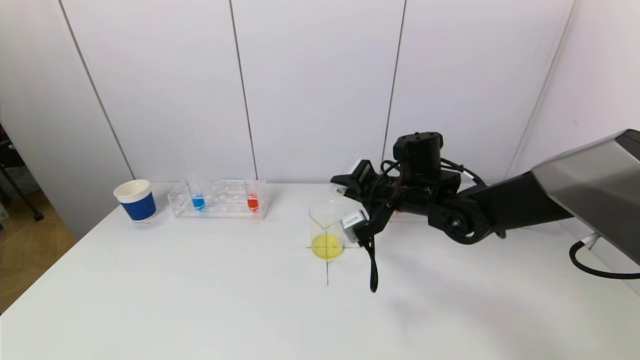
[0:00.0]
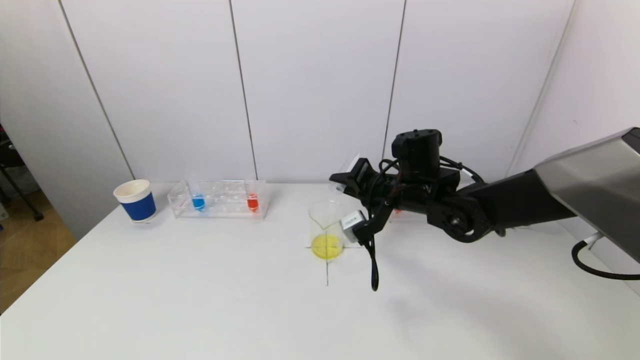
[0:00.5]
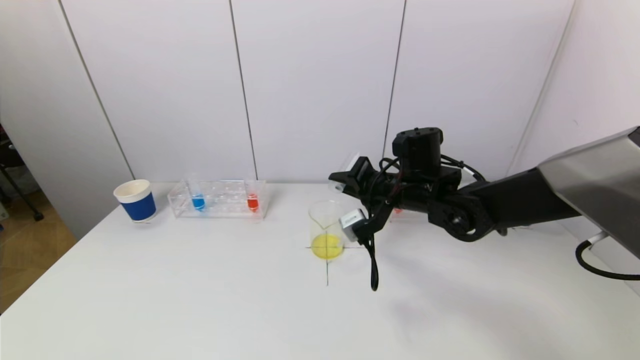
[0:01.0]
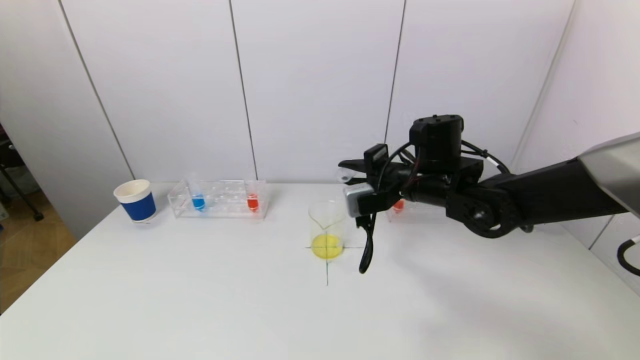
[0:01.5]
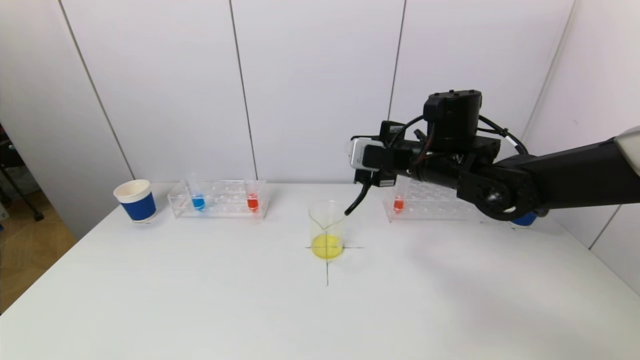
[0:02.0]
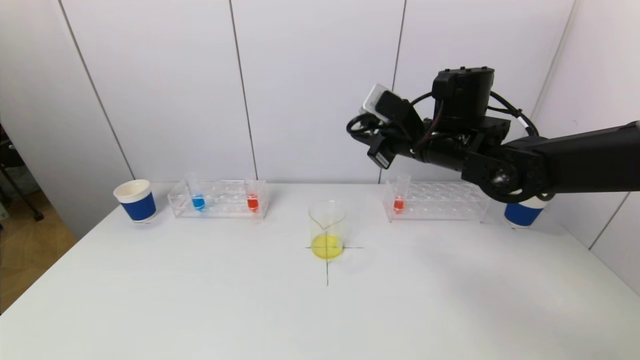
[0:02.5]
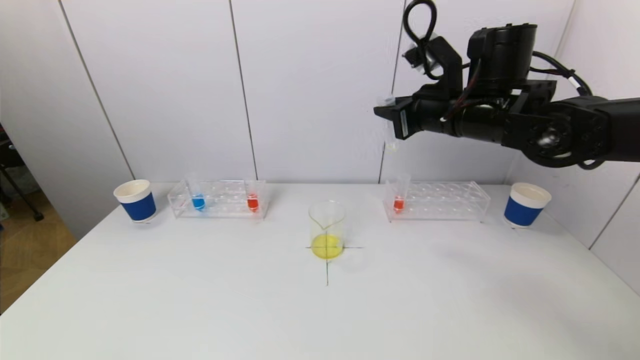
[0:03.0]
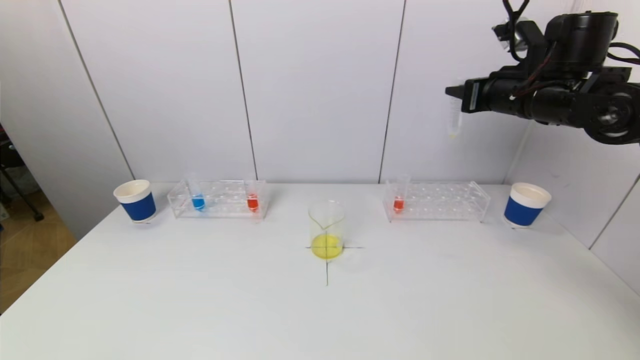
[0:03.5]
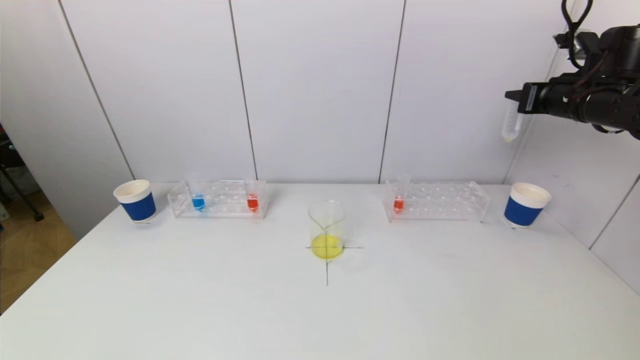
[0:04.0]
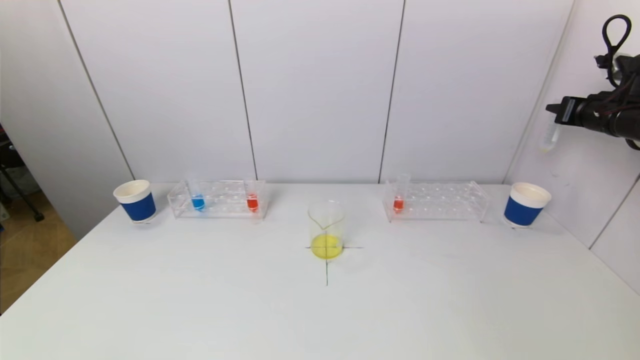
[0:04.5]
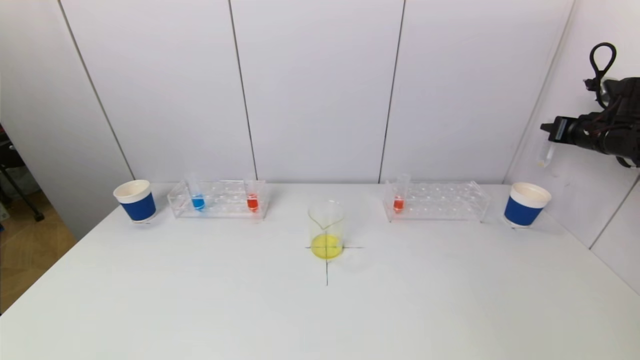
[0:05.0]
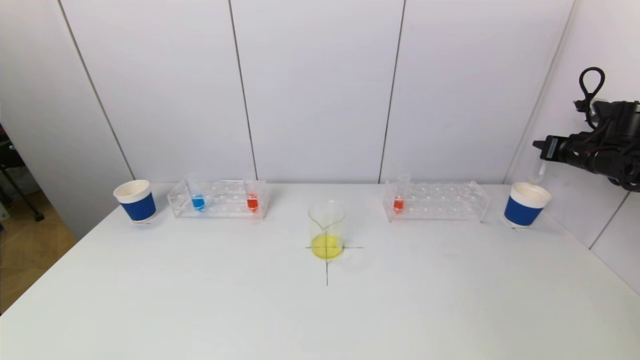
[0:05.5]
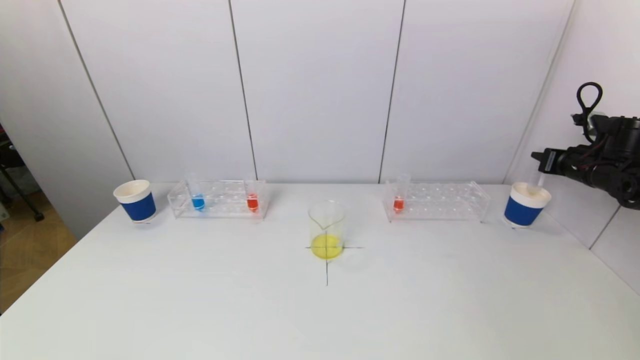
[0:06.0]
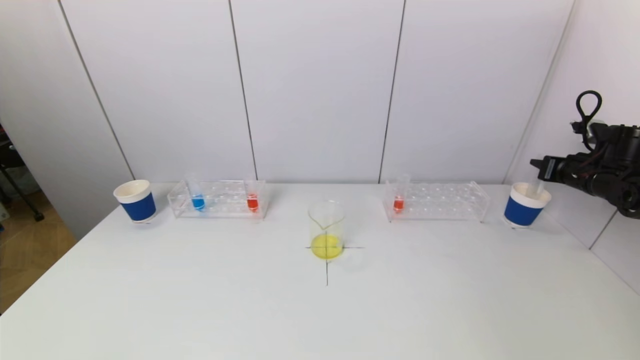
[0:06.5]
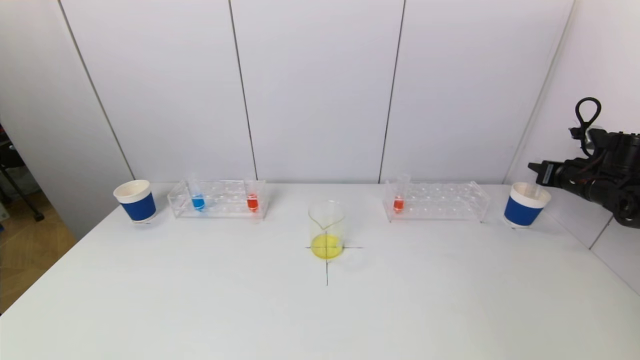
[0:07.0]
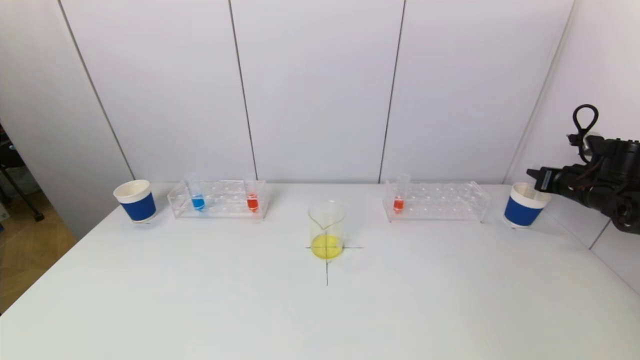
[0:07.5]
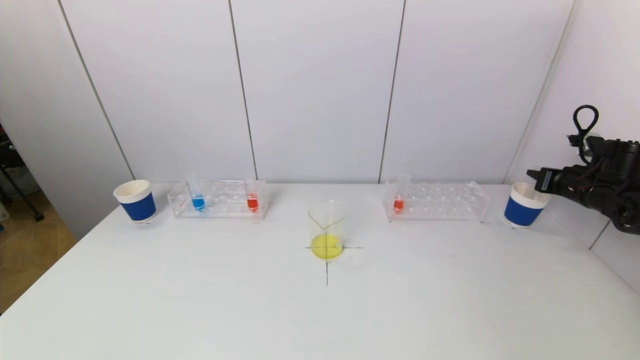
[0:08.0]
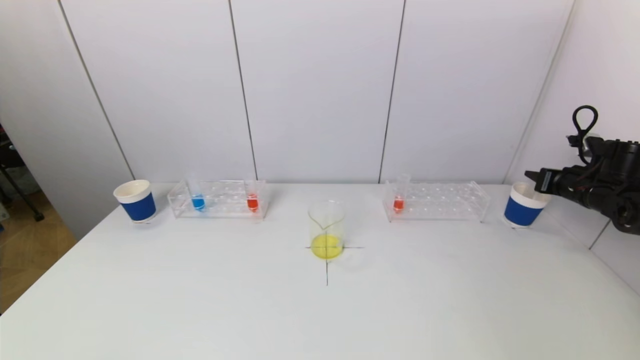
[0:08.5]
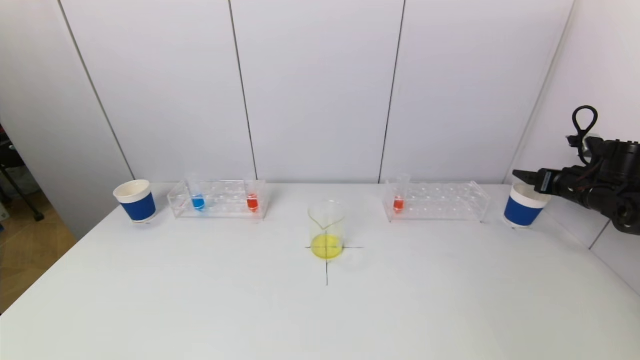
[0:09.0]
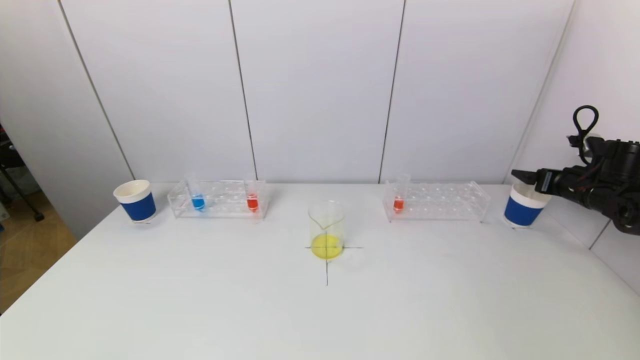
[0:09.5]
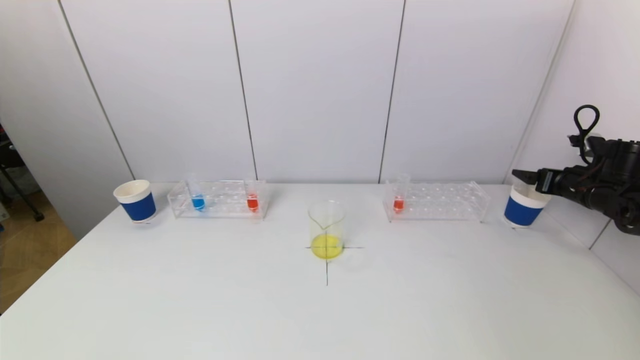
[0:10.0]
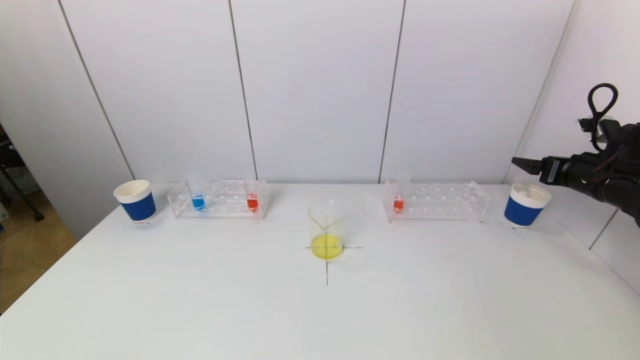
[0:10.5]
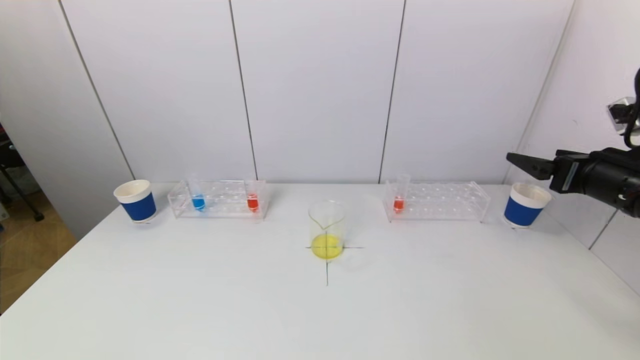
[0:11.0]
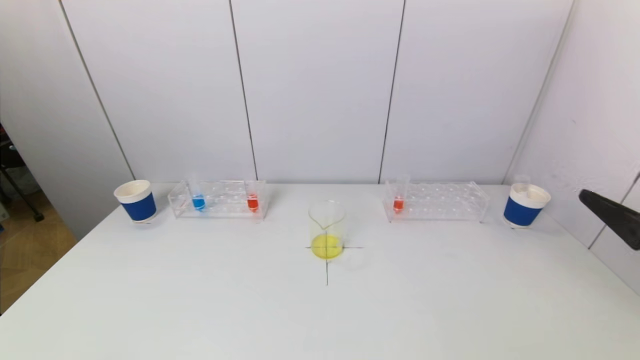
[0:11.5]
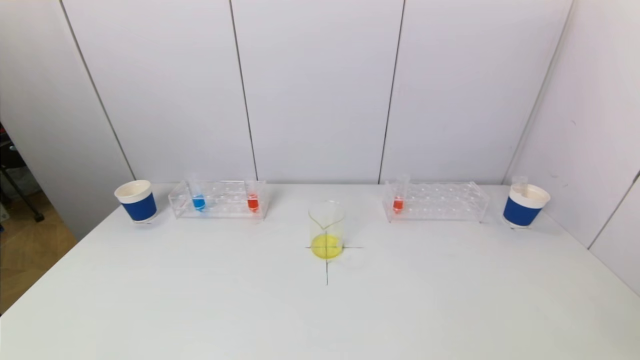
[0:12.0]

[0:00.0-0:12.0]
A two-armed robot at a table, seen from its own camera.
Task of the whole recording: pick up a test tube with pigment on left test tube rack and a test tube with pigment on right test tube rack by grippers and pour them into the beaker.
Step, 0:01.5 to 0:09.5: Place the test tube into the paper cup with the right gripper.
0:00.0 to 0:02.0: The right gripper goes some 5 cm upward.
0:02.0 to 0:04.0: The right gripper moves to the right, roughly 25 cm.
0:04.0 to 0:06.0: The right gripper shifts about 15 cm downward and to the right.
0:06.0 to 0:08.0: The grippers make only small movements.
0:10.0 to 0:12.0: The right gripper heads backward, covering roughly 40 cm.

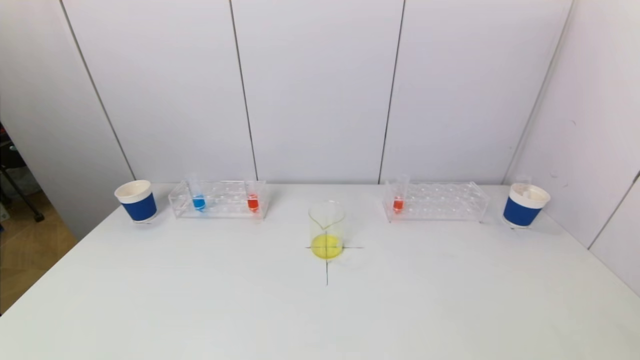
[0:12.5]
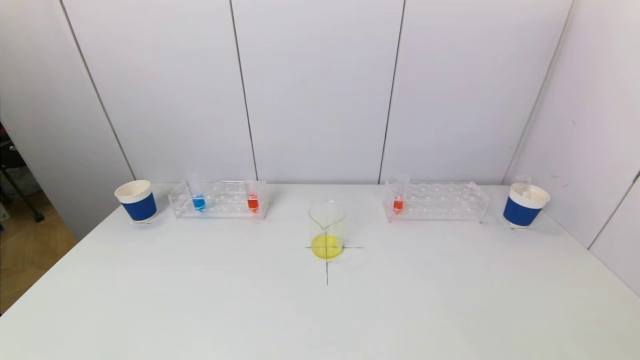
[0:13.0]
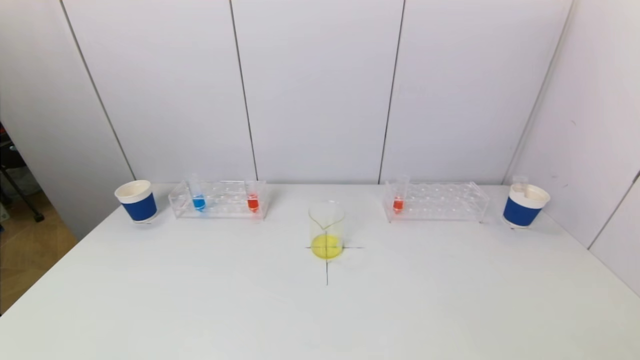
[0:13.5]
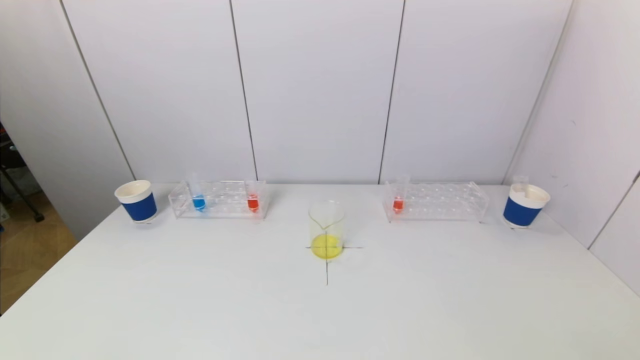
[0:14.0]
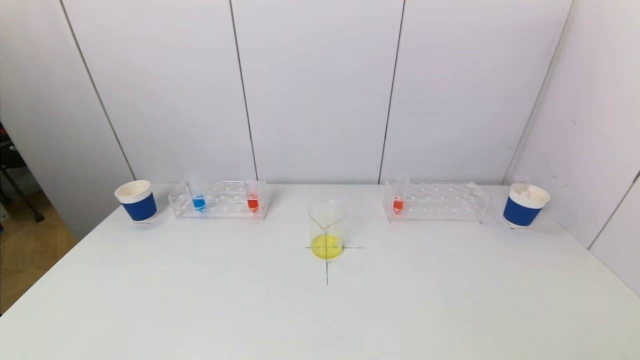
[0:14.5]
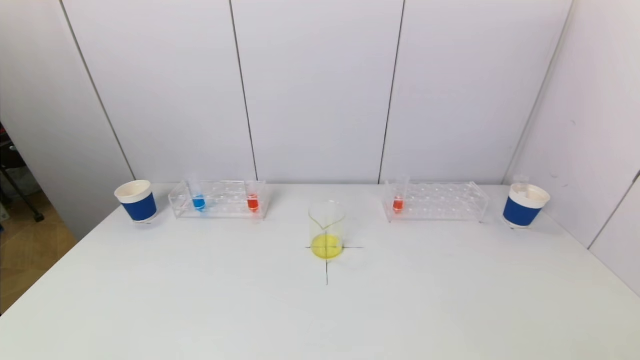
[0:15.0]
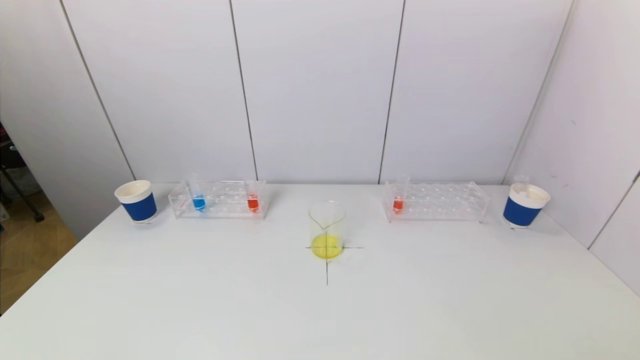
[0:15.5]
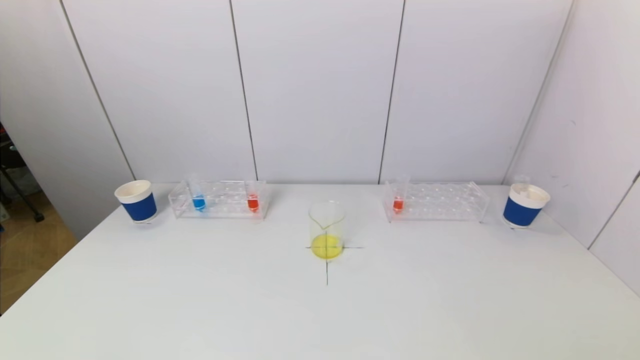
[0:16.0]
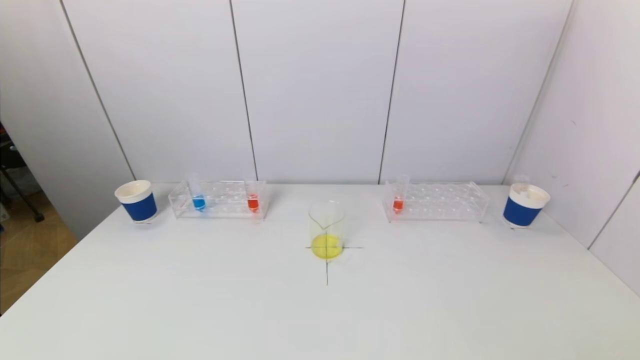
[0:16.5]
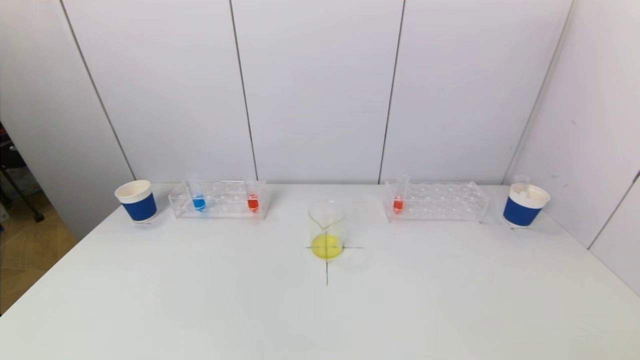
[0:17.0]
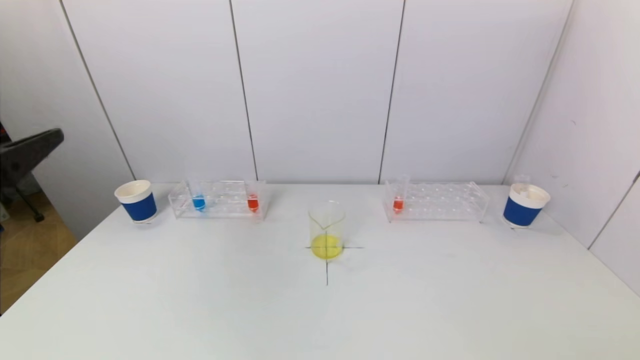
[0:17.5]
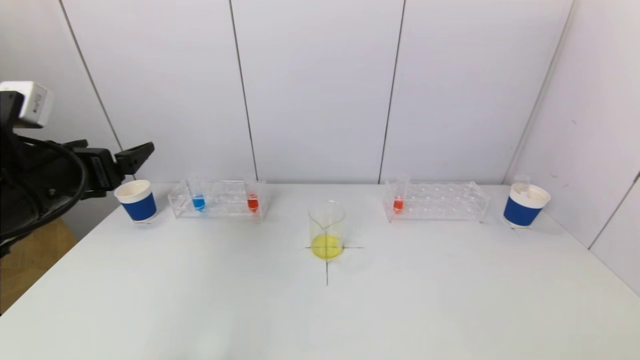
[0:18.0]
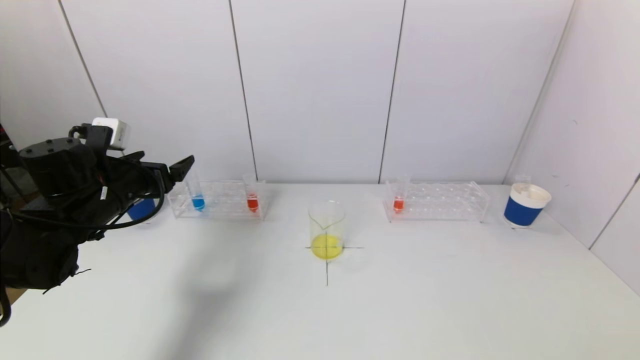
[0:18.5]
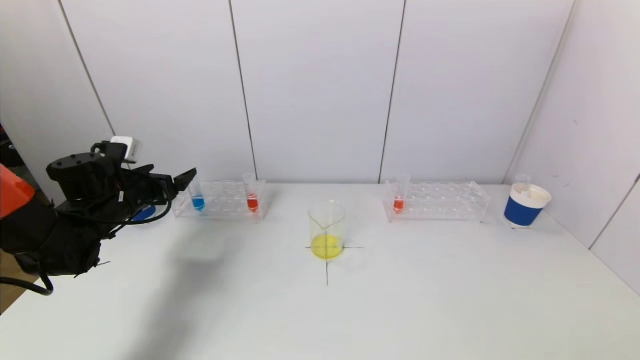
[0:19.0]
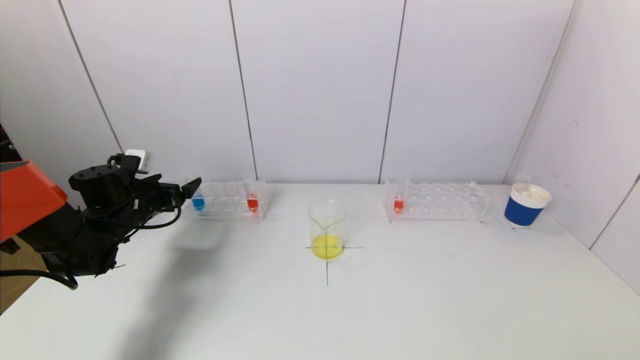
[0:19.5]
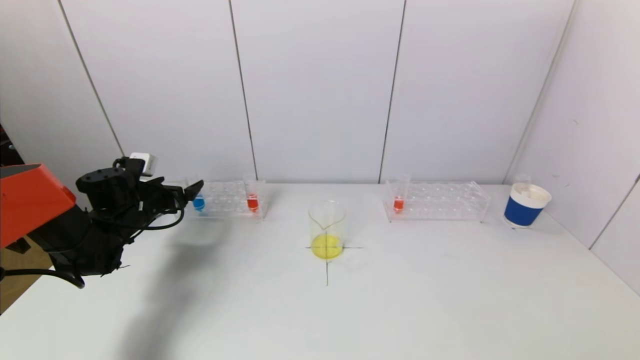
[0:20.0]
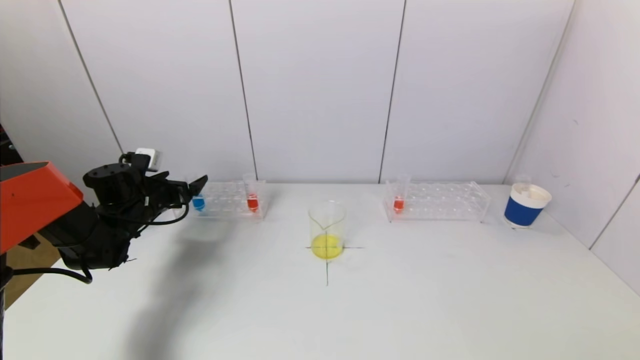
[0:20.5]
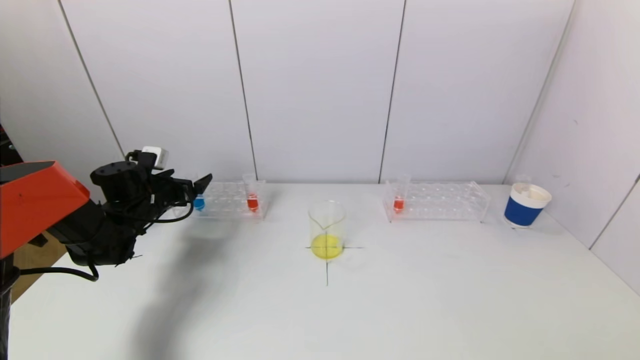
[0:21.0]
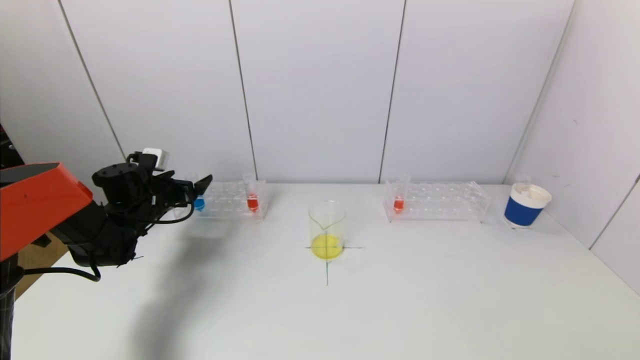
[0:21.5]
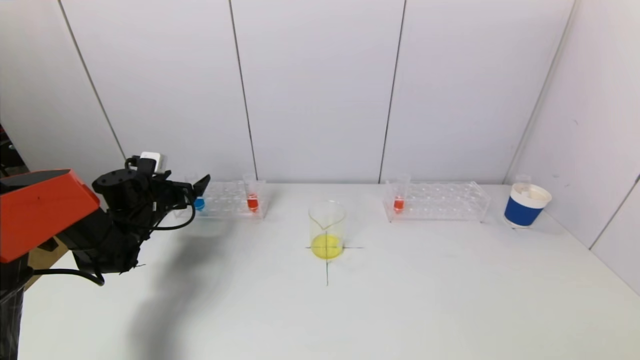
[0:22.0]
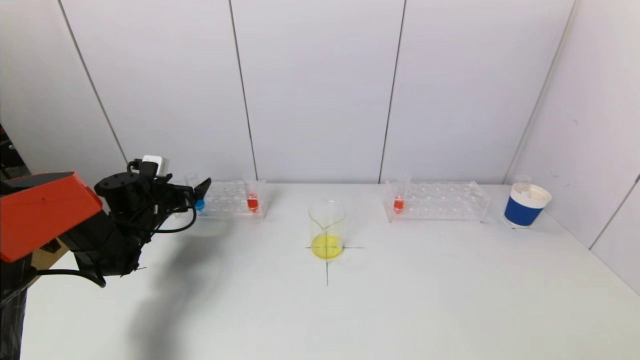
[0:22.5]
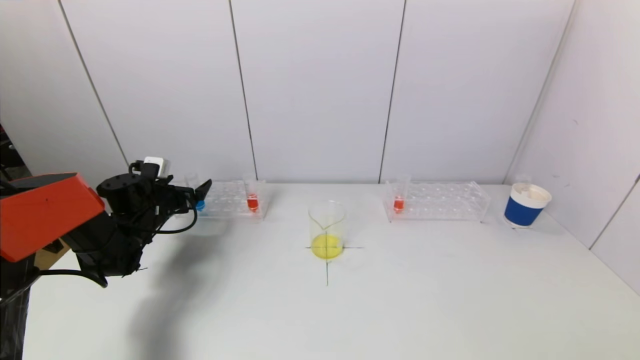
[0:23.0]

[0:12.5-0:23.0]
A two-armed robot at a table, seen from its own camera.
Task of the whole recording: pick up a test tube with pigment on left test tube rack and a test tube with pigment on right test tube rack by grippers and pour them into the beaker.
0:16.5 to 0:19.0: The left gripper heads forward, covering about 40 cm.
0:19.0 to 0:21.0: The left gripper travels forward by some 5 cm.
0:21.0 to 0:23.0: The grippers make only small movements.
